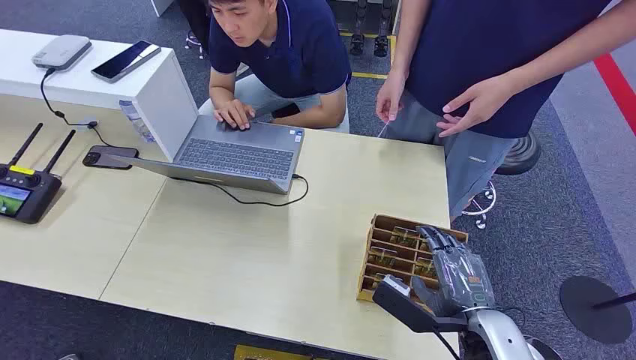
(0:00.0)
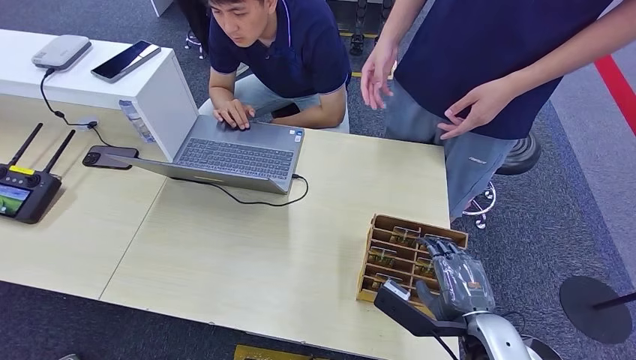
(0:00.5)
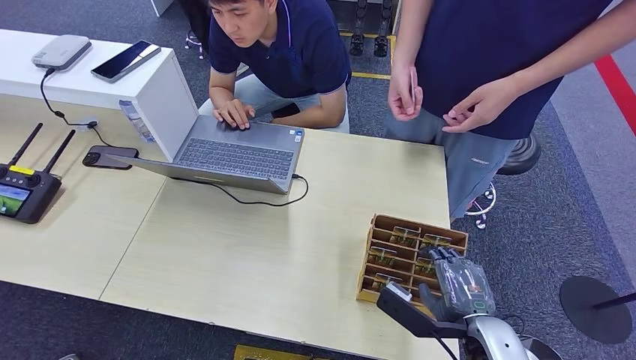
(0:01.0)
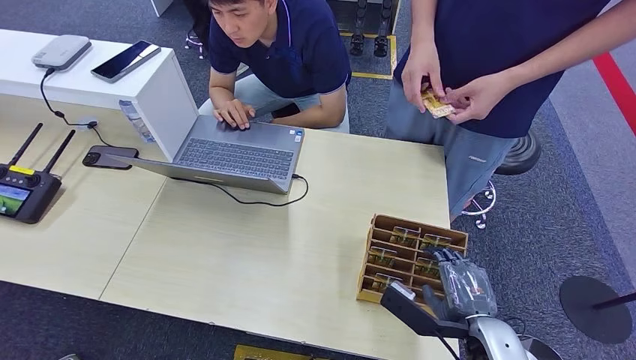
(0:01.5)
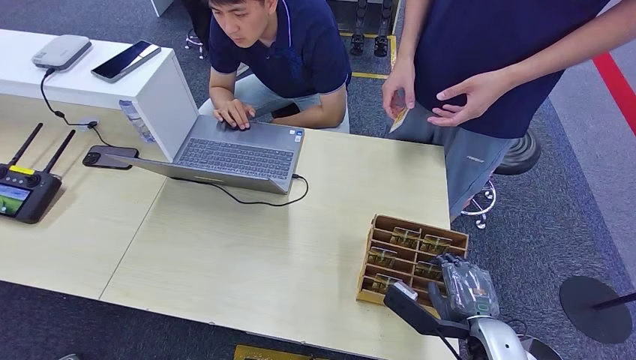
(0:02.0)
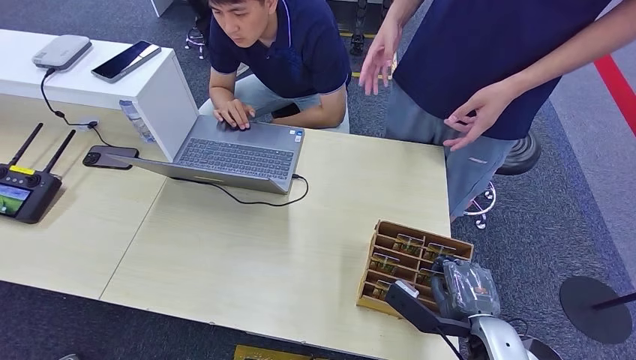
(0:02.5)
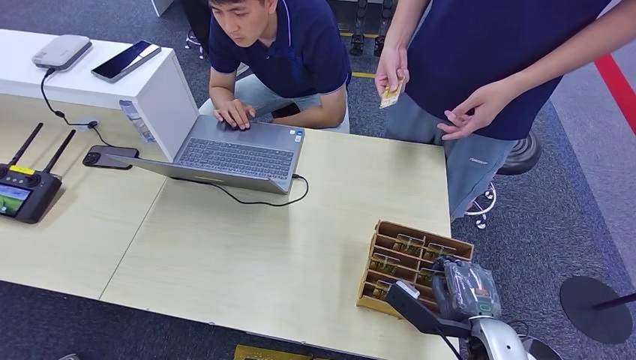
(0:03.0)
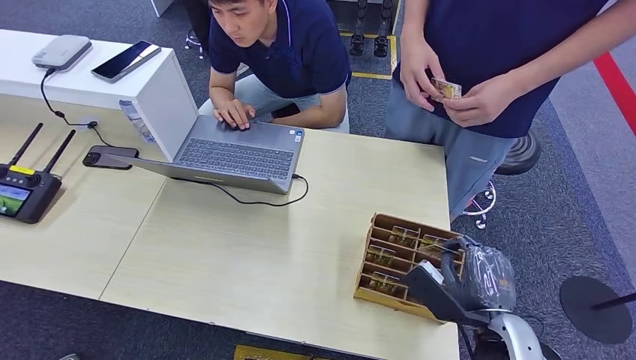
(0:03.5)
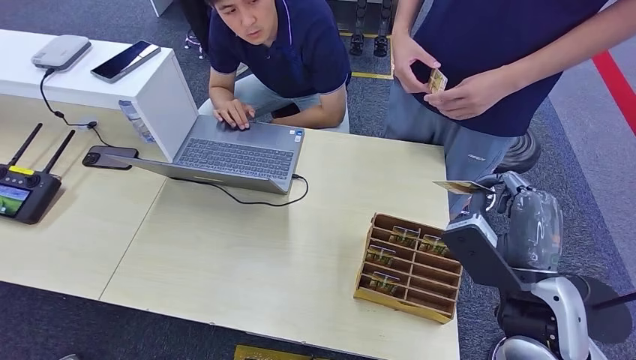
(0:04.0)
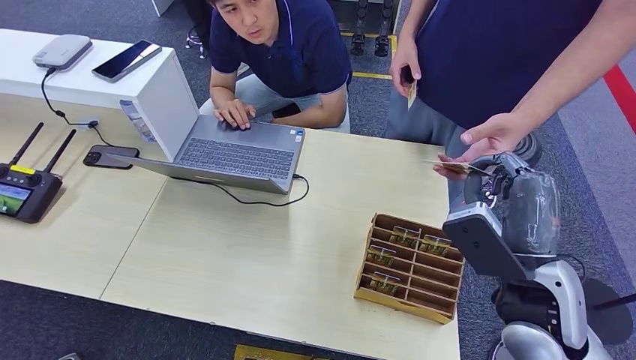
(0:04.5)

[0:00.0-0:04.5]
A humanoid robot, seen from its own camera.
Step, 0:00.0 to 0:03.0: Pick up the key card from the card box.
Step, 0:04.0 to 0:04.5: Hand the key card to the target.
0:02.0 to 0:04.5: The right hand is displaced upward by roughly 15 cm.
